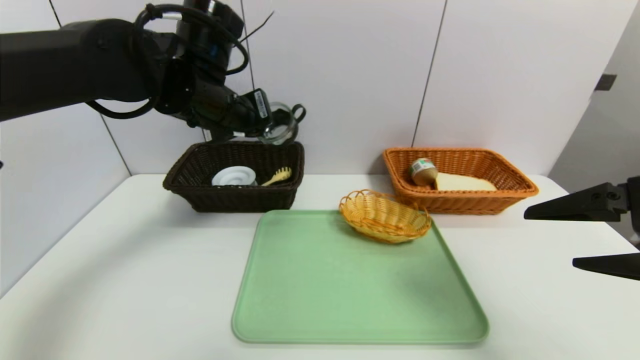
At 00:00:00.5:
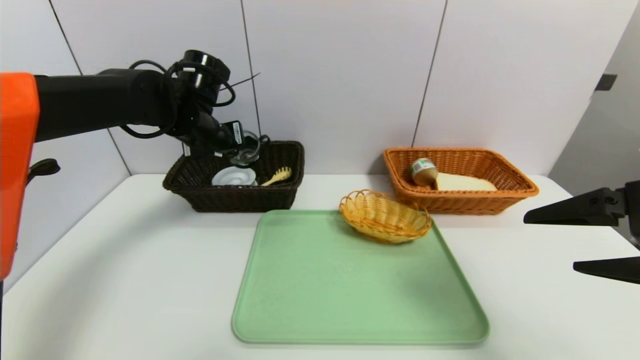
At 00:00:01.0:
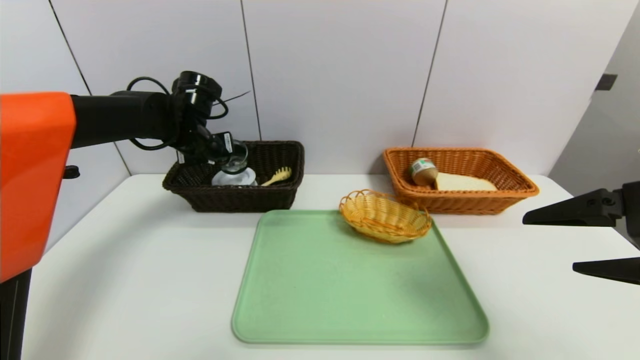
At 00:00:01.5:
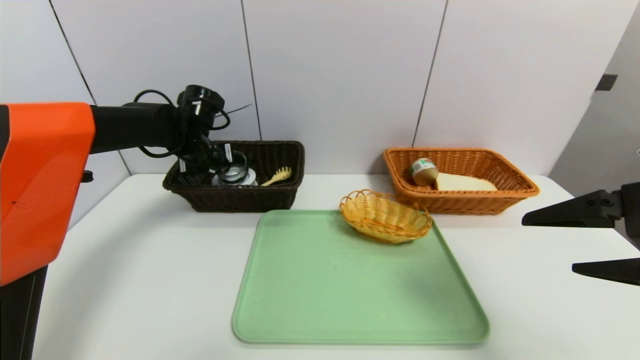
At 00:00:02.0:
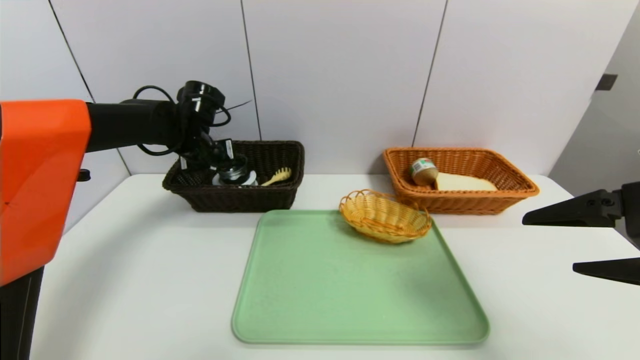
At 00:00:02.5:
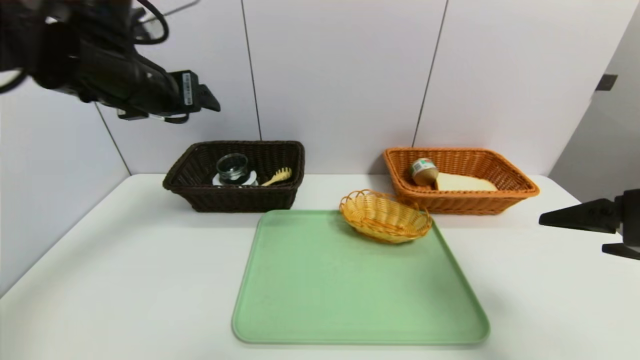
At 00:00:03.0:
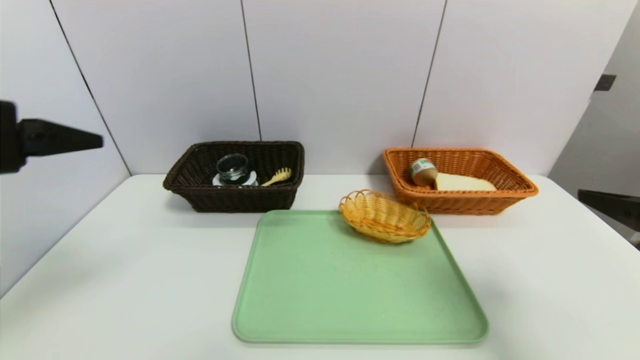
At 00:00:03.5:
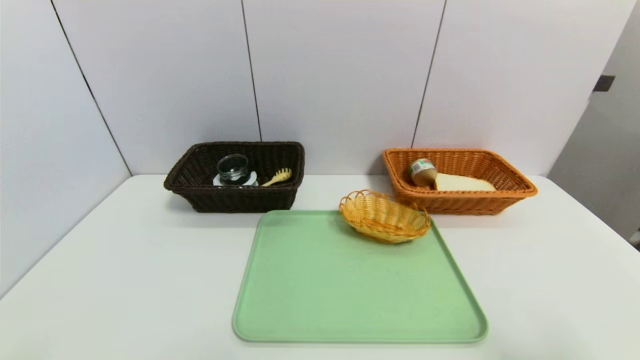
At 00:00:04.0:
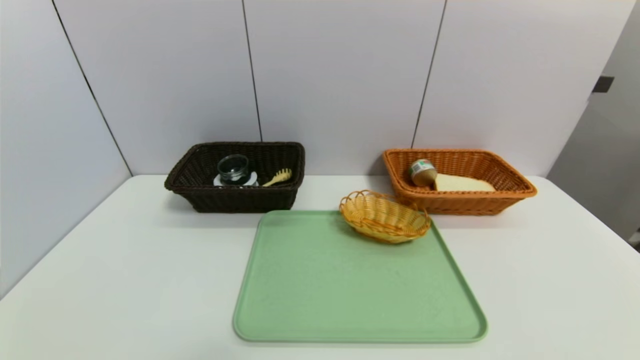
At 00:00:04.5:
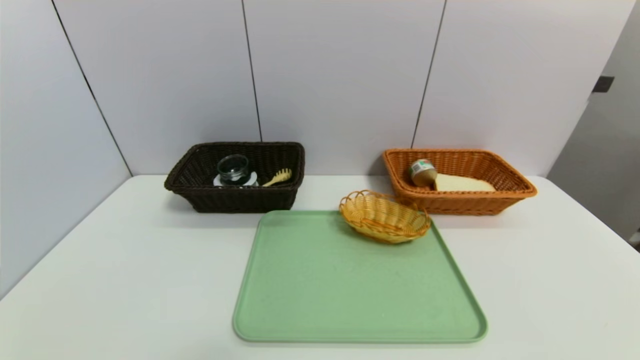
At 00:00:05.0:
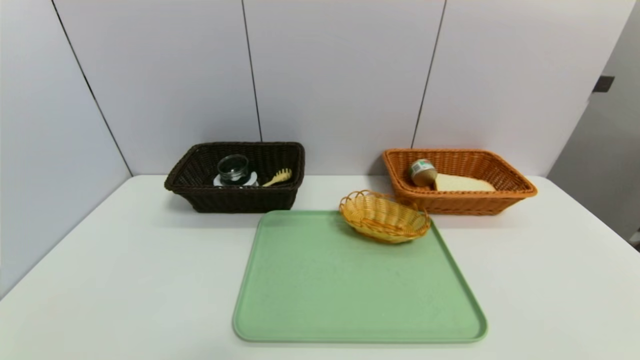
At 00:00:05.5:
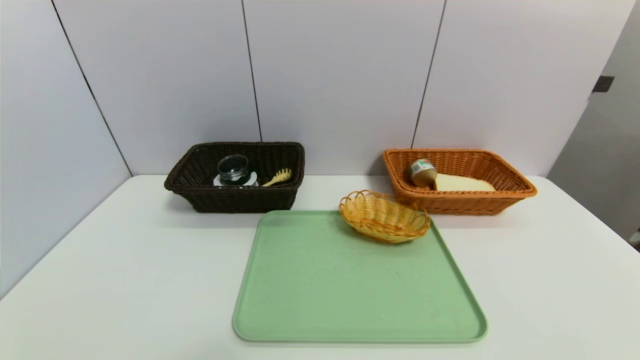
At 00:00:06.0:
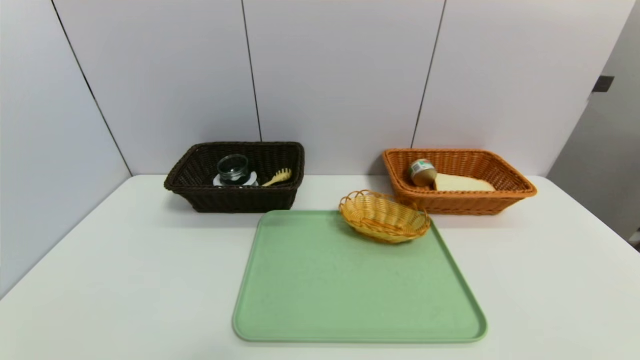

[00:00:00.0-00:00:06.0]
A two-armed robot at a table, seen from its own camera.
Task of the whole recording: place the food in the right basket with the right gripper, and place the non food items in the left basket with the left gripper.
Step, 00:00:00.0 to 00:00:02.0: Grasp the black glass cup and put it in the left basket.
00:00:00.0 to 00:00:02.0: The left gripper moves forward, downward and to the left, roughly 15 cm, and opens its fingers.
00:00:02.0 to 00:00:04.0: The right gripper is displaced backward and downward by about 20 cm. The left gripper shifts about 50 cm backward, and opens.
